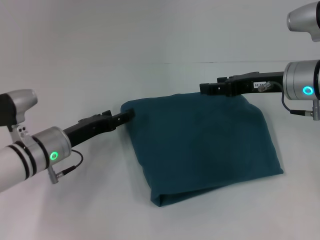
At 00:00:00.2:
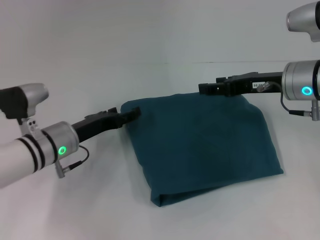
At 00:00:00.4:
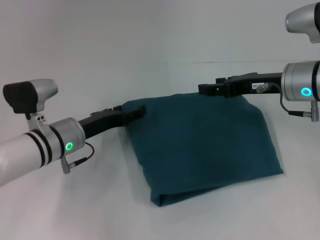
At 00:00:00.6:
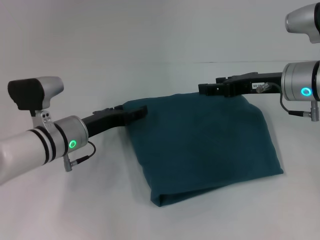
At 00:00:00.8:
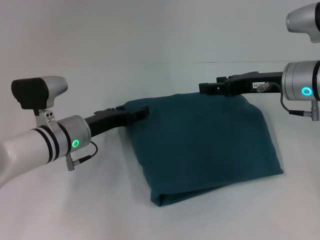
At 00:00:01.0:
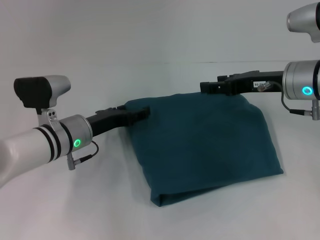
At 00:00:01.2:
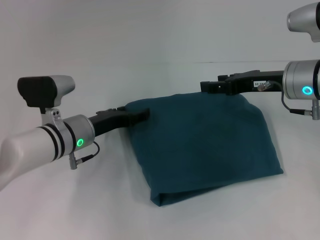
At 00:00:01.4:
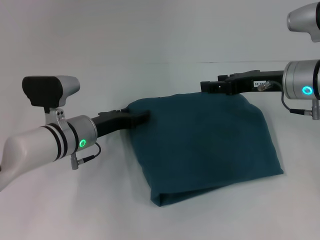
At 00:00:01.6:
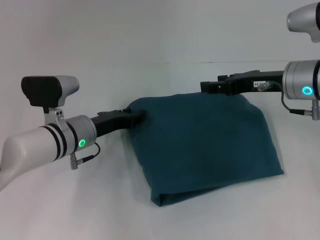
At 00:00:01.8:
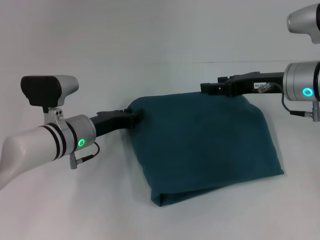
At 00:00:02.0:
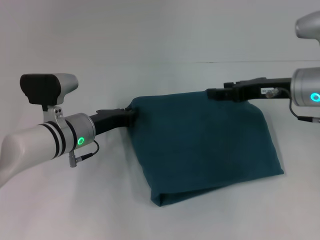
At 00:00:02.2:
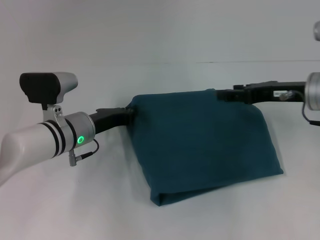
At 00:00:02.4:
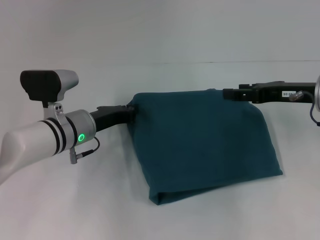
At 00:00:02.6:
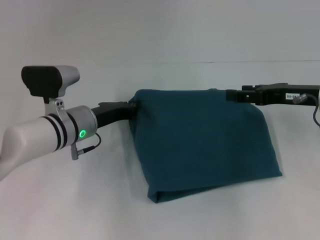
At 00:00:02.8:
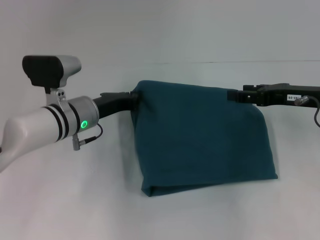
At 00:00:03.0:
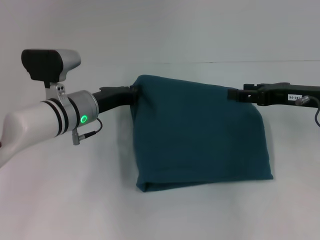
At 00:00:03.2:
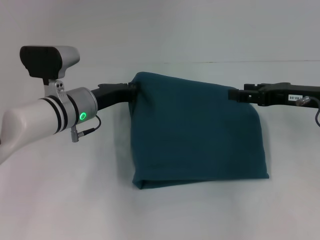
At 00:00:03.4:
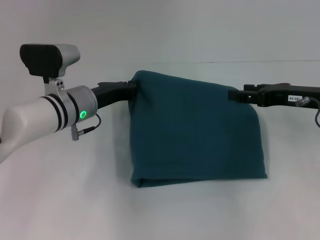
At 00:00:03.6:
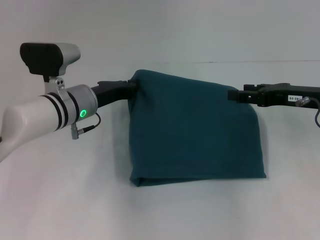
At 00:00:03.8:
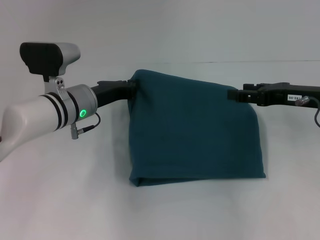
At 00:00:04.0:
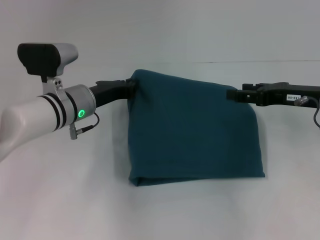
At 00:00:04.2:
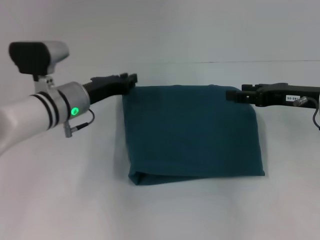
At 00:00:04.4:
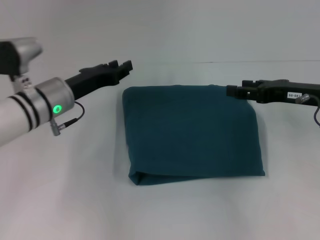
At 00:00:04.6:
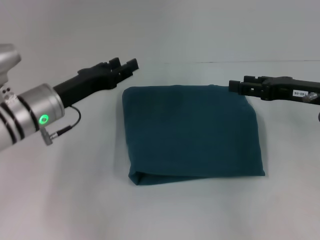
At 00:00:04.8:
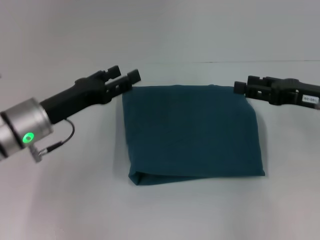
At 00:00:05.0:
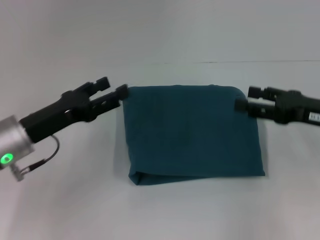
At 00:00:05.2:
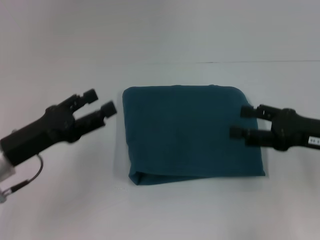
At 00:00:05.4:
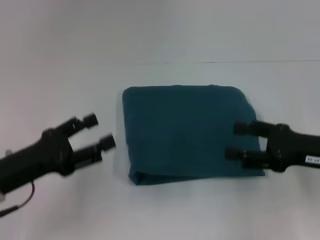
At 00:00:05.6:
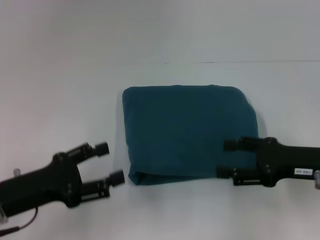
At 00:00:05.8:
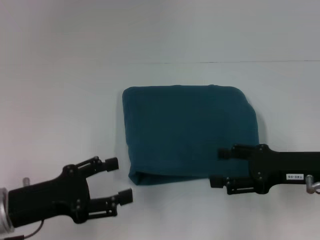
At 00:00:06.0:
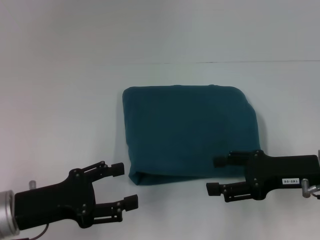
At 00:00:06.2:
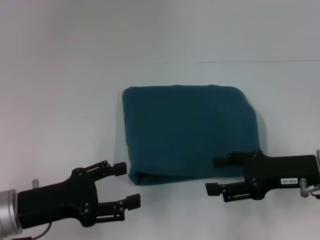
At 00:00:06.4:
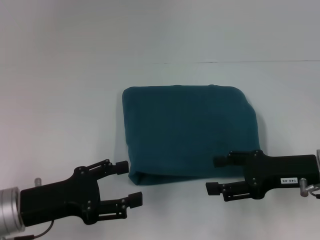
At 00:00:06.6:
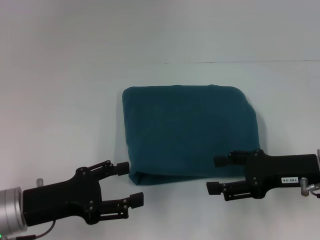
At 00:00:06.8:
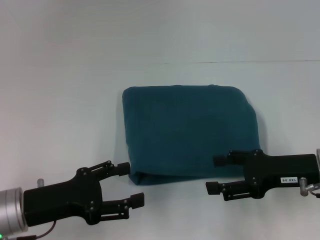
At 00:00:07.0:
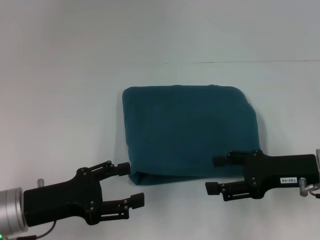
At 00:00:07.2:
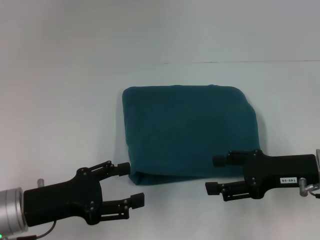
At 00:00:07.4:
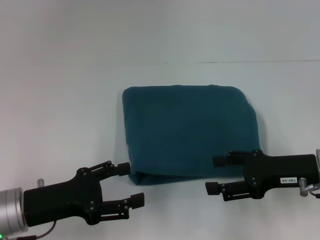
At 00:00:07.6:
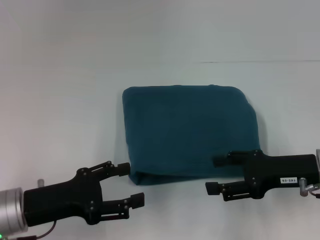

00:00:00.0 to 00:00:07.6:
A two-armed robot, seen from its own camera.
00:00:00.0 to 00:00:01.6: The left gripper ends up about 5 cm from where it was.
00:00:01.6 to 00:00:03.0: The left gripper closes up, while the right gripper is displaced to the right by some 5 cm.
00:00:03.0 to 00:00:04.6: The left gripper shifts by approximately 5 cm, and opens its fingers.
00:00:04.6 to 00:00:06.0: The left gripper goes roughly 15 cm backward, and opens. Meanwhile the right gripper is displaced backward by roughly 5 cm.
00:00:06.0 to 00:00:07.6: Neither gripper changes place.
